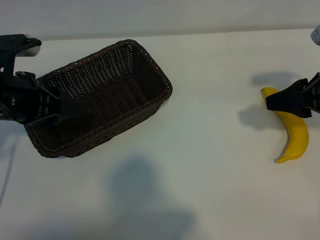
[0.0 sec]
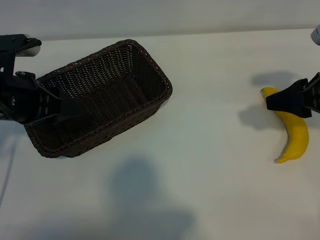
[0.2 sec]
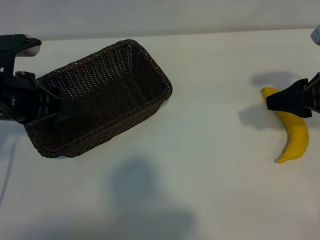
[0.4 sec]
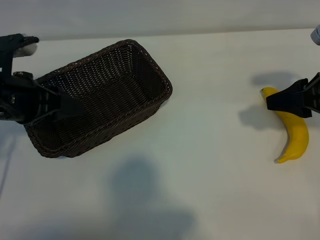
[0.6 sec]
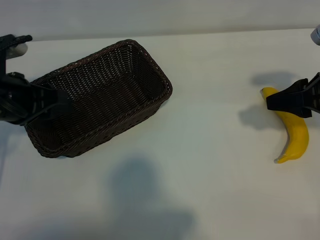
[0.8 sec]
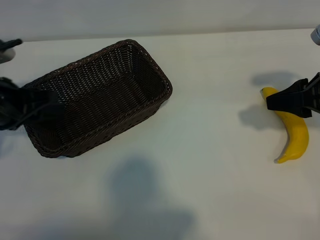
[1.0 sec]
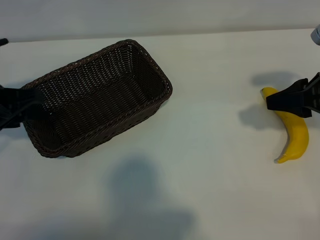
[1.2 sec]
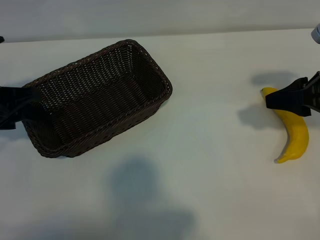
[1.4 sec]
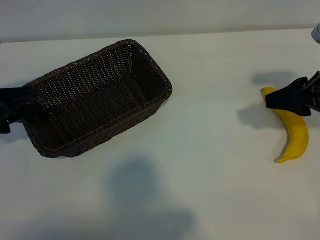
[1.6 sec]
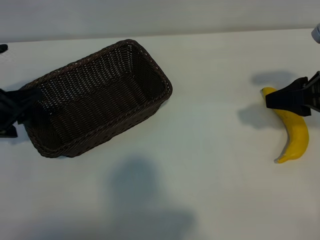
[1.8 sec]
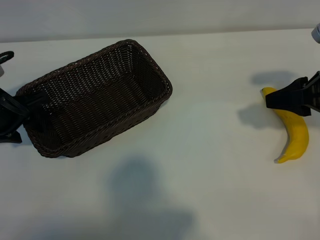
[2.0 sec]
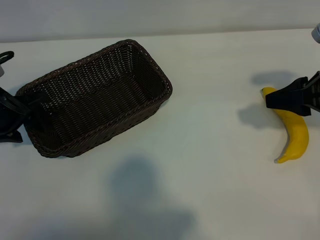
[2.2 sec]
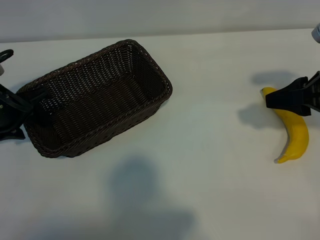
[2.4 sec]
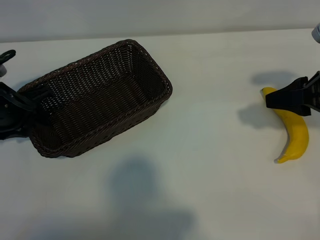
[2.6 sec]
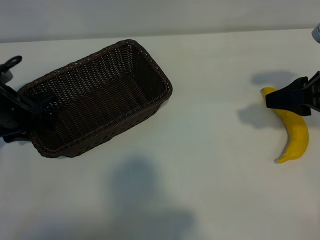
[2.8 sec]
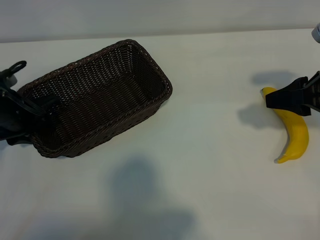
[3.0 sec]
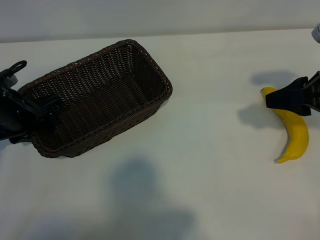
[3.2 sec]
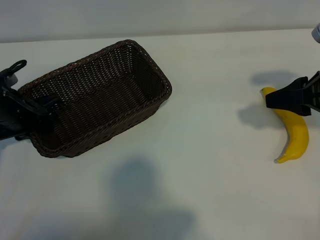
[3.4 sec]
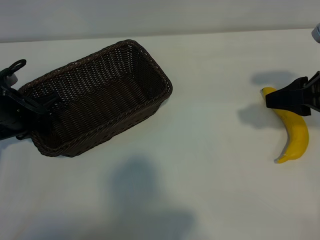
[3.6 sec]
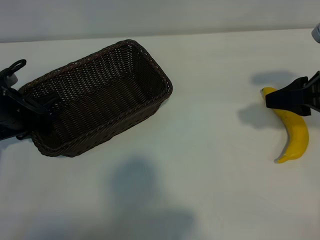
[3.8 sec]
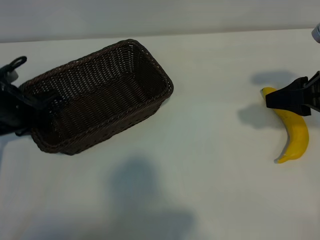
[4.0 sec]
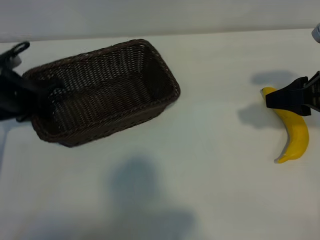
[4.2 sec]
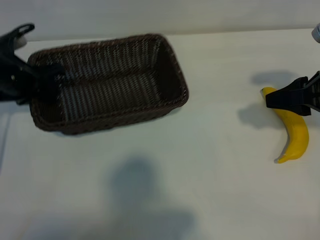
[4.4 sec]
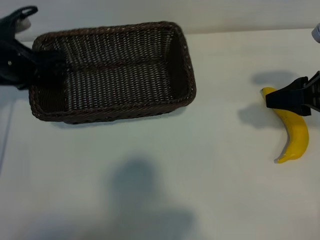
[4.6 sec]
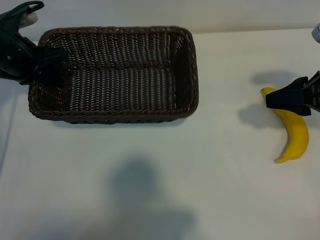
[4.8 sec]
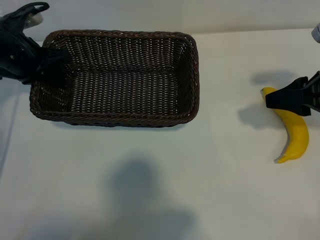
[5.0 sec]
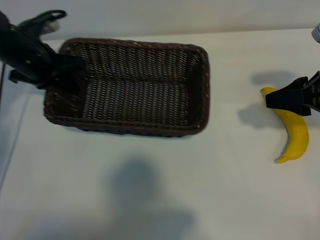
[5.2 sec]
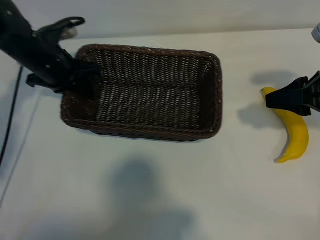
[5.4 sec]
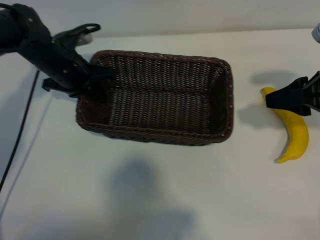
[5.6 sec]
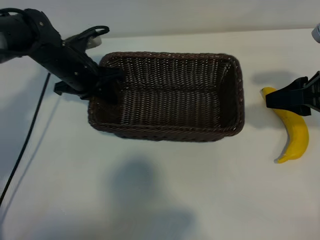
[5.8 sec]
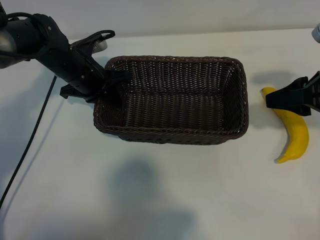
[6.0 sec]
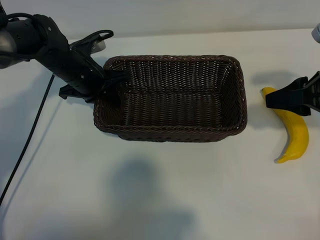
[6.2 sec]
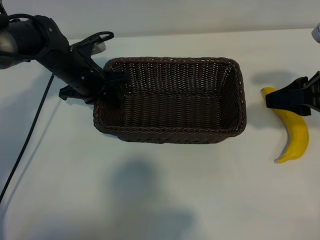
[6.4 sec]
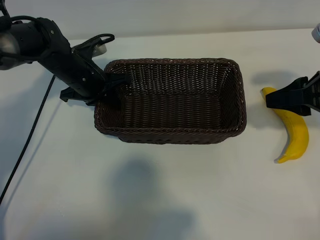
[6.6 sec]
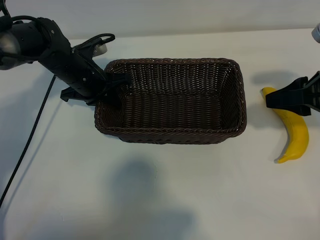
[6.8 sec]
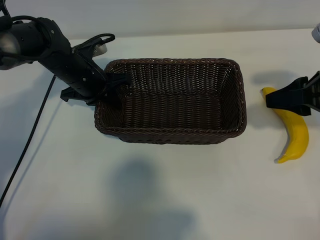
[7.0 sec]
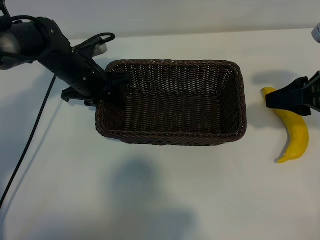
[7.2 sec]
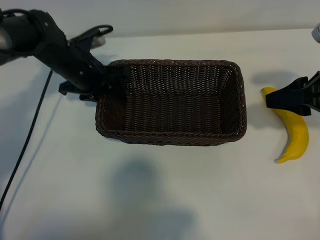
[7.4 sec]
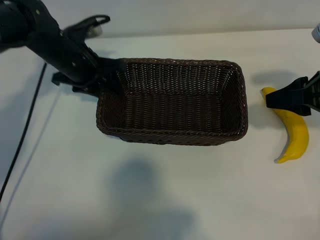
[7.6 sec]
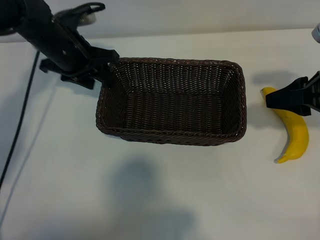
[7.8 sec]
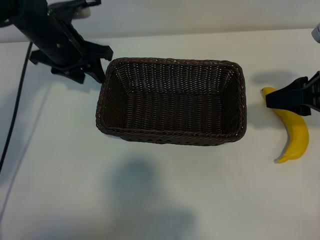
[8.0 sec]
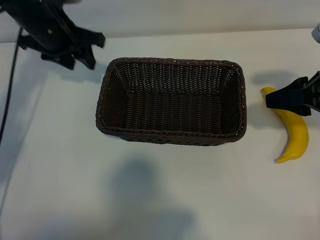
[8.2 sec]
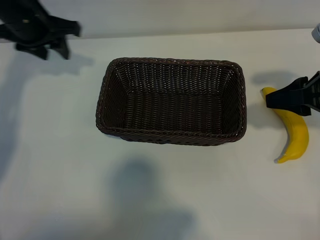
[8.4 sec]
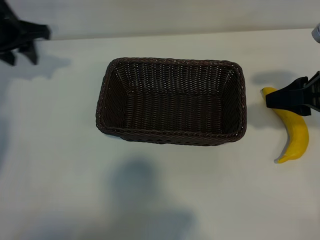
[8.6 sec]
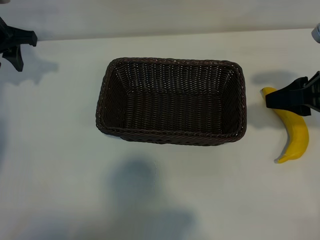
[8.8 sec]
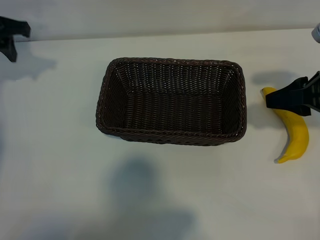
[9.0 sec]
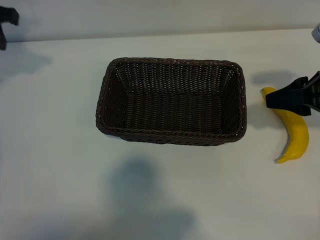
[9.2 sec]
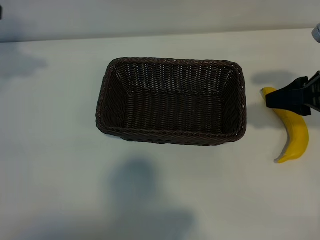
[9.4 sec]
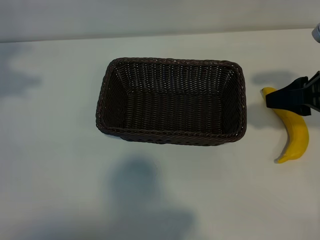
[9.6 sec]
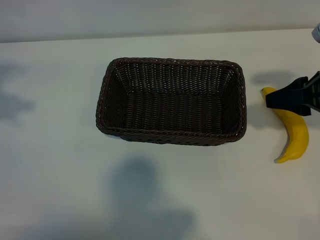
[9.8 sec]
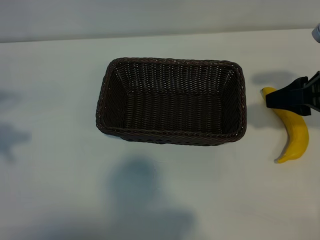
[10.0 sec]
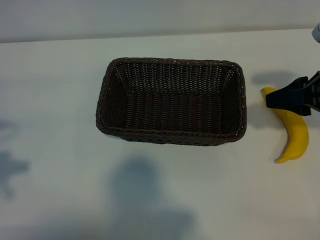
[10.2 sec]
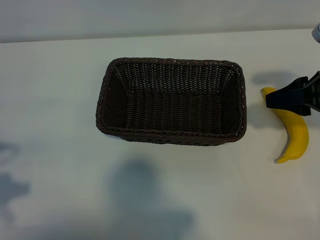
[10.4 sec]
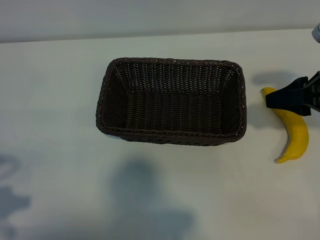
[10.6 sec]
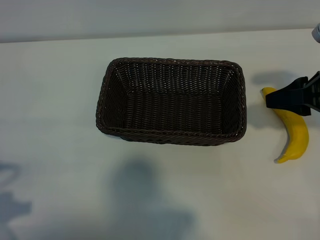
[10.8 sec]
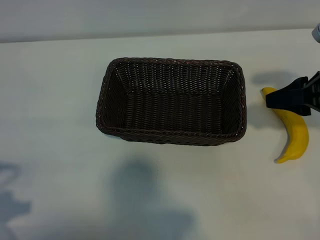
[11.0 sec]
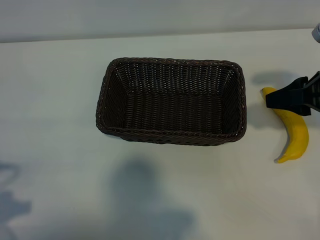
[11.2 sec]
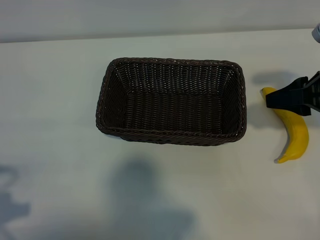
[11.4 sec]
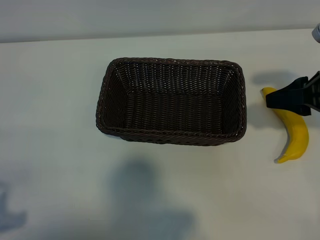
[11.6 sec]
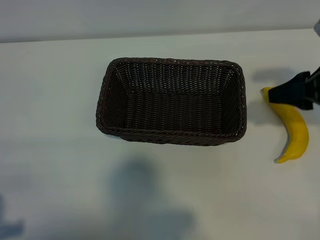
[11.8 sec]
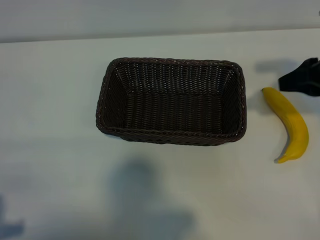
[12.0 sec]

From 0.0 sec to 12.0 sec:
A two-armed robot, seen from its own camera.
Task of the whole recording: pick up the banana and put it into the basket.
Step, from 0.6 sec to 3.6 sec: Grasp the basket with the left gripper.
Step, from 3.8 sec to 7.8 sec: Place the basket in the center of the table with the left gripper.

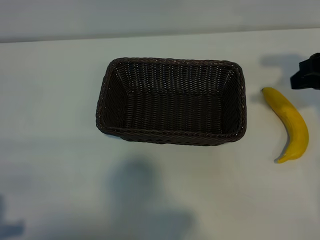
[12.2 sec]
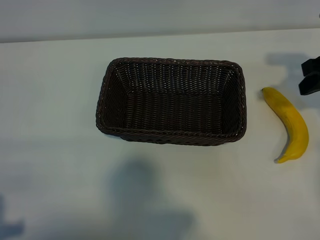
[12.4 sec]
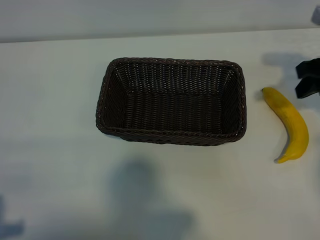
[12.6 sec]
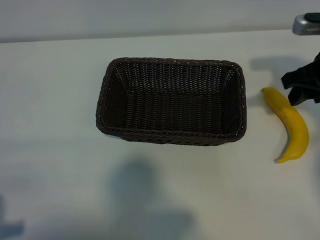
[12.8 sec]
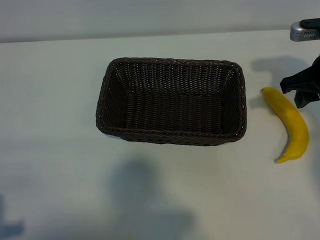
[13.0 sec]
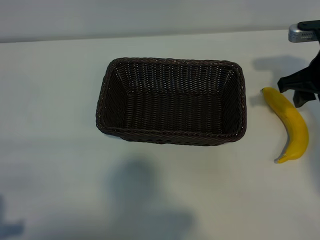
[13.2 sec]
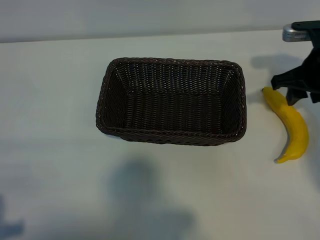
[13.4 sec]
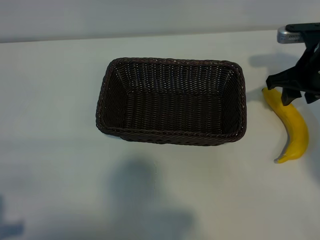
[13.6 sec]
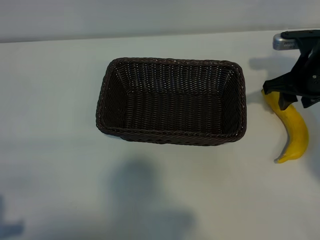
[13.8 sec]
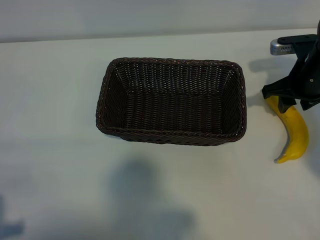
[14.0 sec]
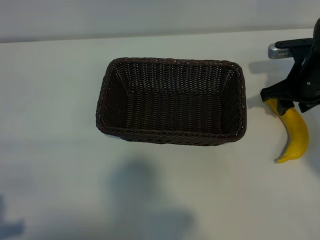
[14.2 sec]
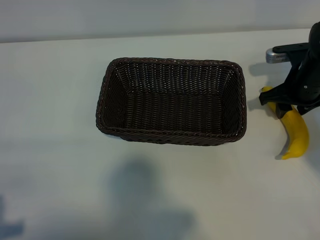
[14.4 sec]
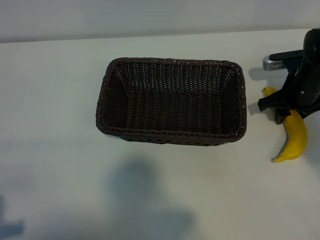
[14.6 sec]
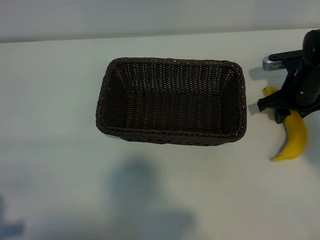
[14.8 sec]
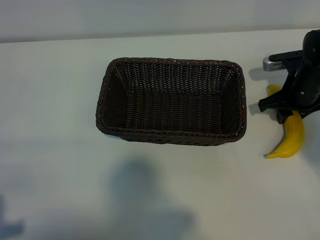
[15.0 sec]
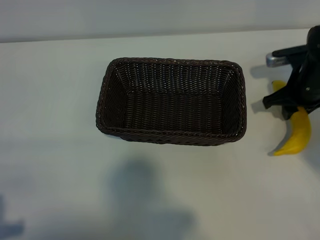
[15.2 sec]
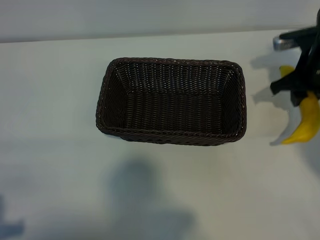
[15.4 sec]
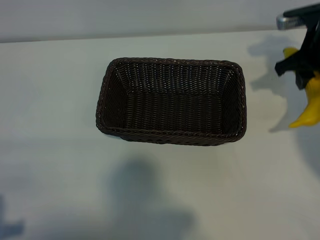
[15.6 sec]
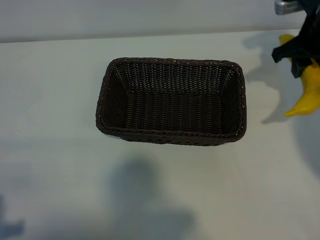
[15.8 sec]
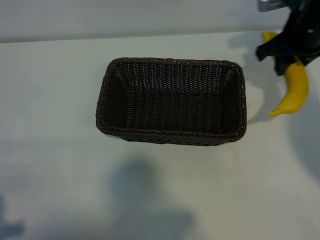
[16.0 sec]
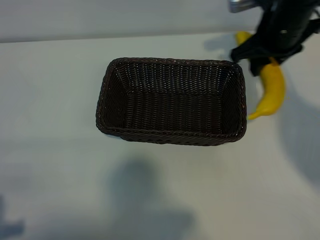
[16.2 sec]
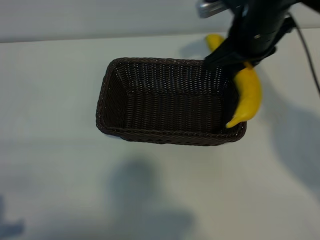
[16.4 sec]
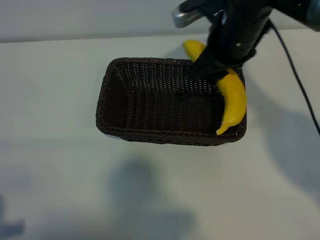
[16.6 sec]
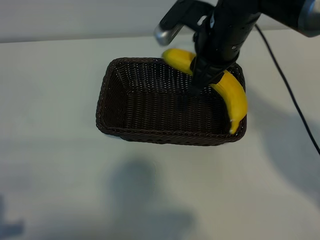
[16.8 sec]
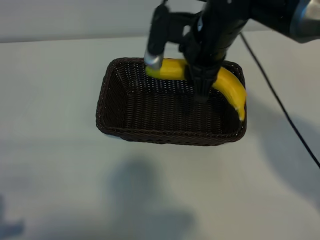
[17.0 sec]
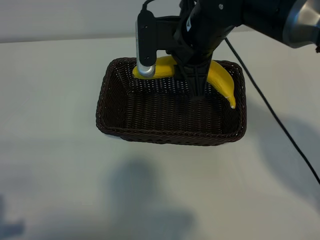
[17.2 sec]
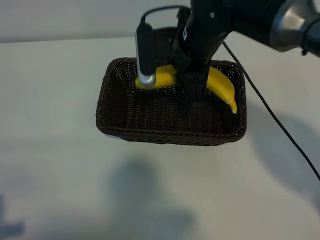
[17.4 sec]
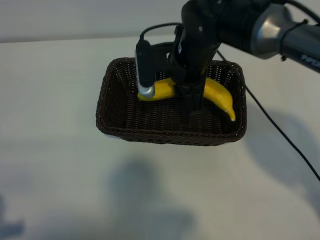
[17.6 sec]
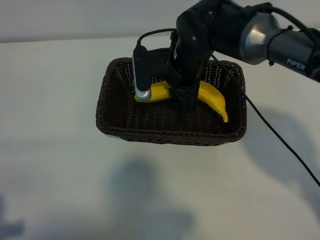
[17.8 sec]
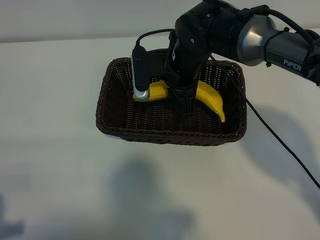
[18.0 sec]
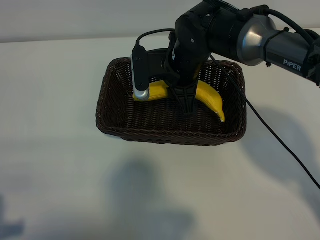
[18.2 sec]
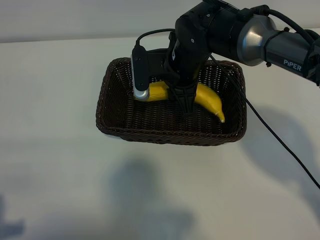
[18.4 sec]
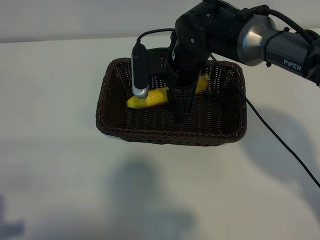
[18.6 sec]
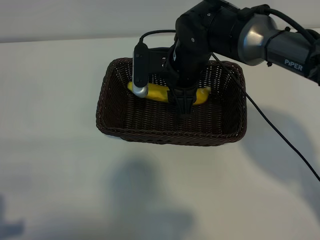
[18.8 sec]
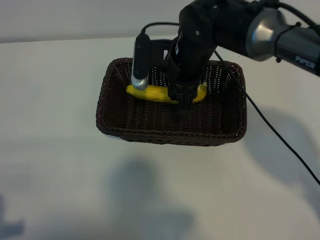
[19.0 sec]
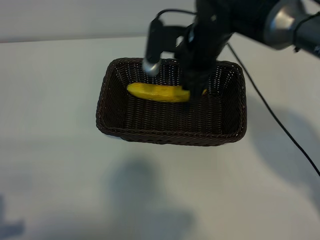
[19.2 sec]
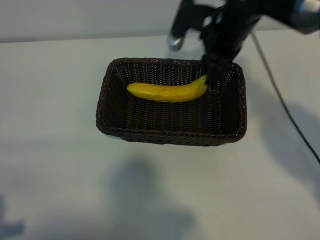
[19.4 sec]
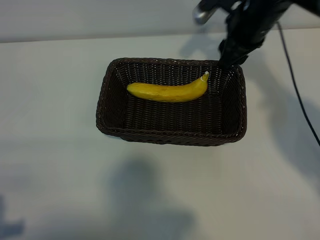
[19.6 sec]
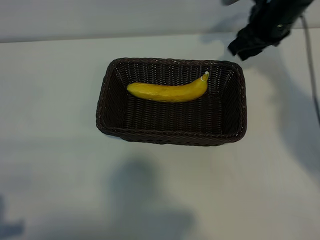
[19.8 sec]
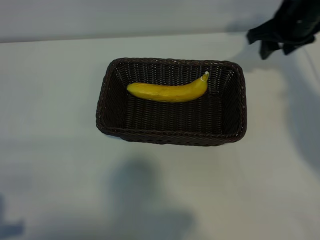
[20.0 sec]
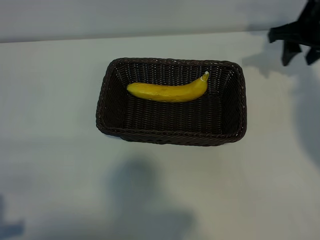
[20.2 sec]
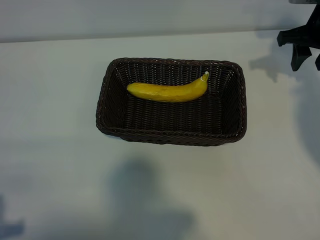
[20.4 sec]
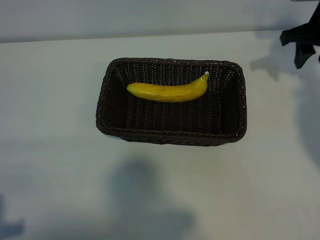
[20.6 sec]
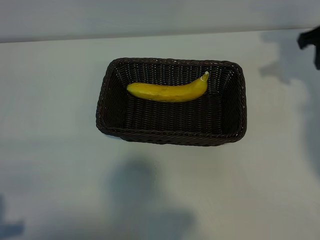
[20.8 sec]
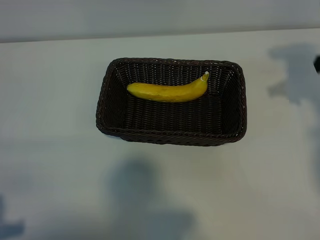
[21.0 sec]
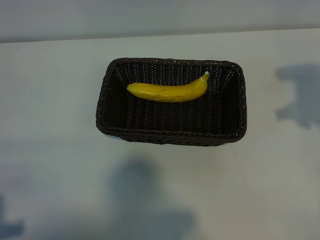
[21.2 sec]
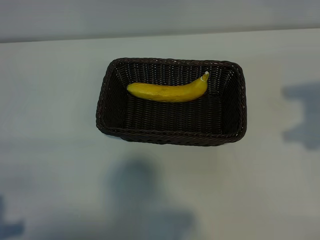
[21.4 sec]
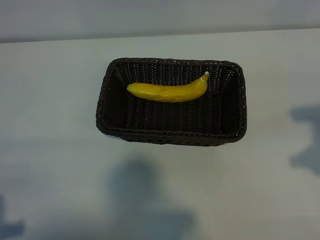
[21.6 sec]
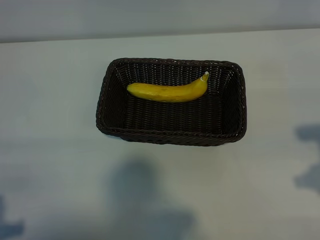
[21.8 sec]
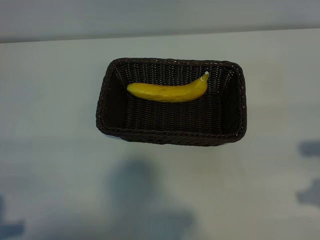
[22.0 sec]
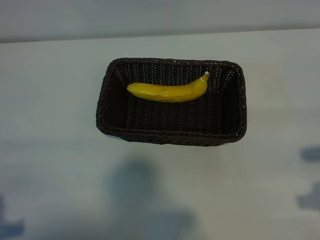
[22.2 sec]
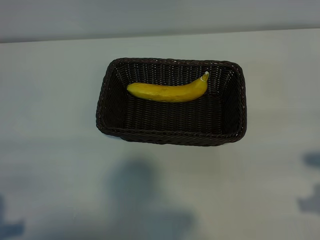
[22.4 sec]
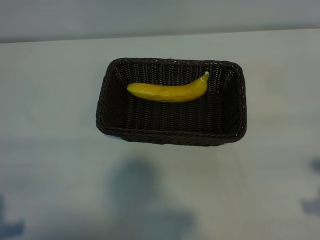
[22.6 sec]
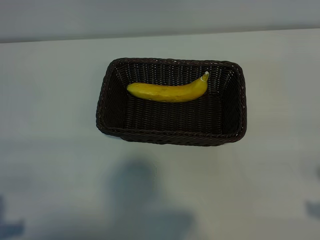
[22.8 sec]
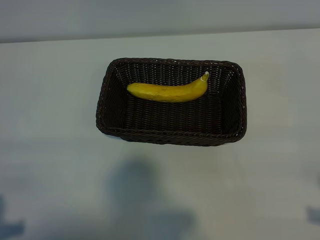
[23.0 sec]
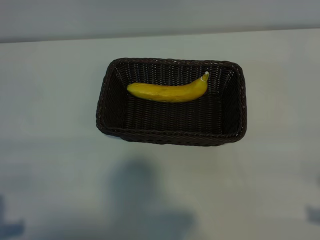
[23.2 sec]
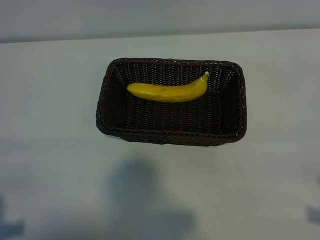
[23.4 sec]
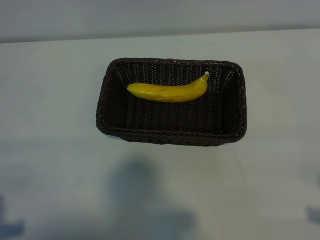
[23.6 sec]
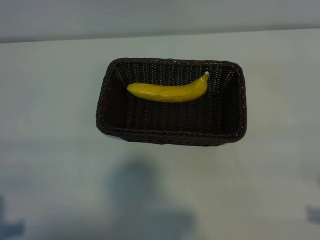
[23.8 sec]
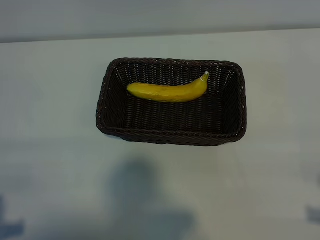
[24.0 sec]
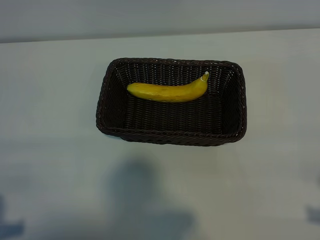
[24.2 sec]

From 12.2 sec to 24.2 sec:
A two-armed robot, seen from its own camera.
Task of the whole recording: pick up the banana and put it into the basket.
Step, from 12.2 sec to 14.8 sec: Grasp the banana with right gripper.
Step, from 15.0 sec to 19.2 sec: Place the banana in the basket with right gripper.
